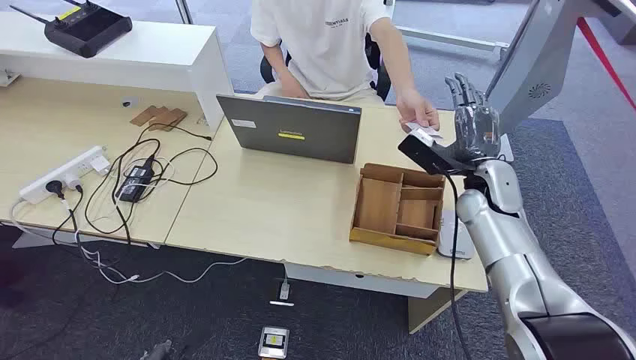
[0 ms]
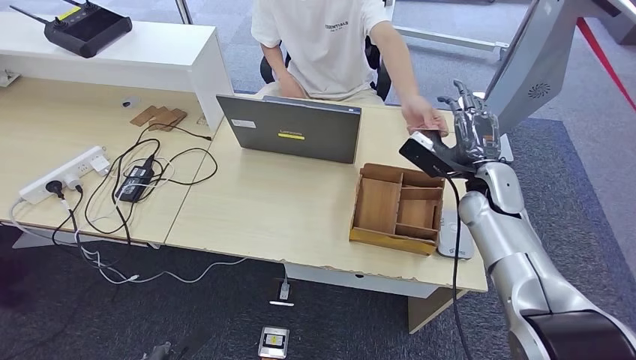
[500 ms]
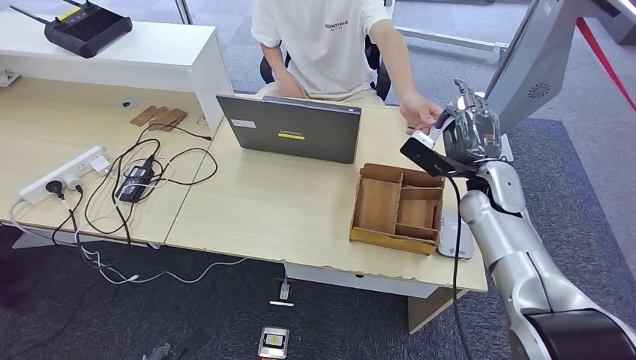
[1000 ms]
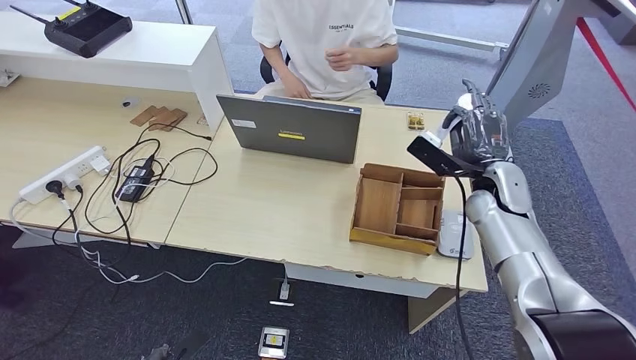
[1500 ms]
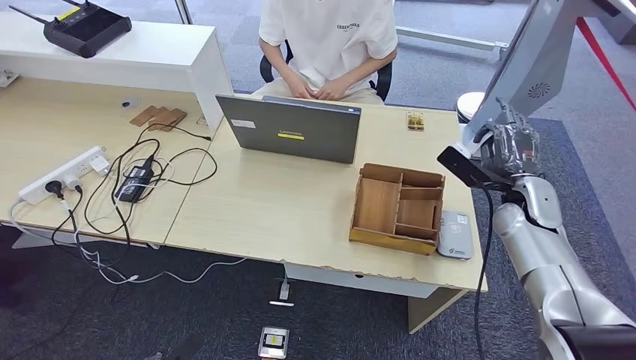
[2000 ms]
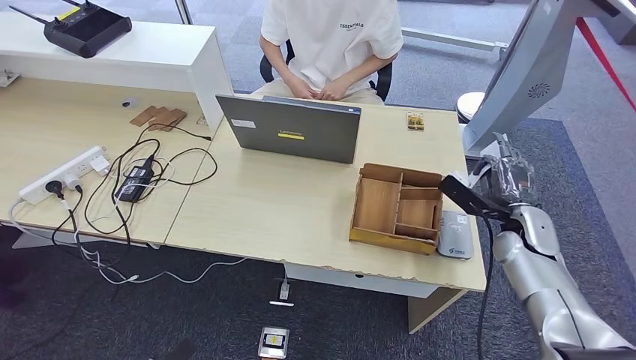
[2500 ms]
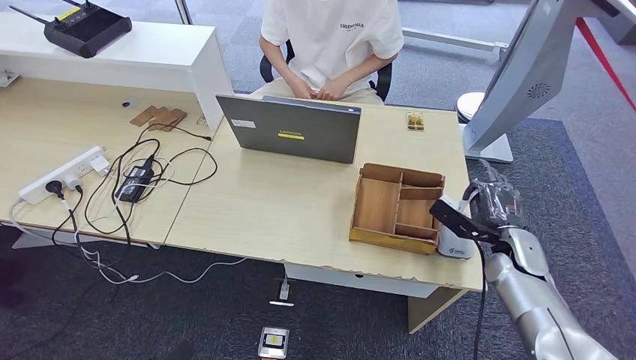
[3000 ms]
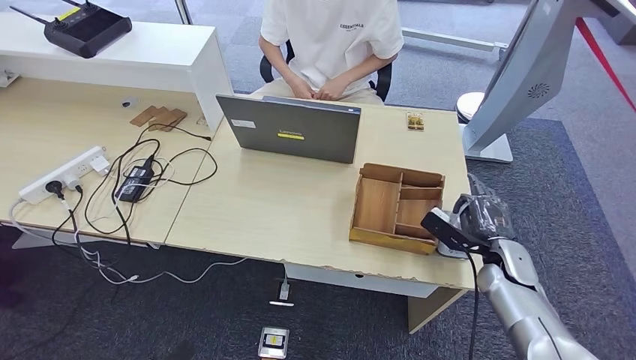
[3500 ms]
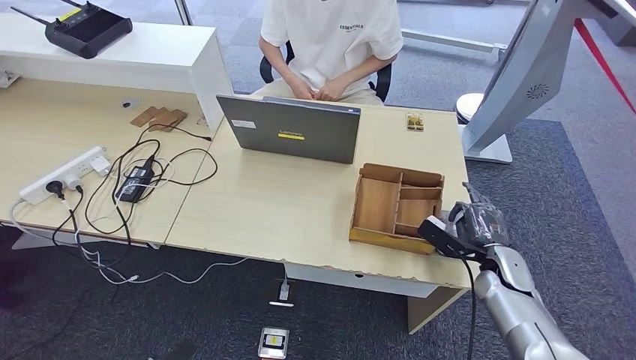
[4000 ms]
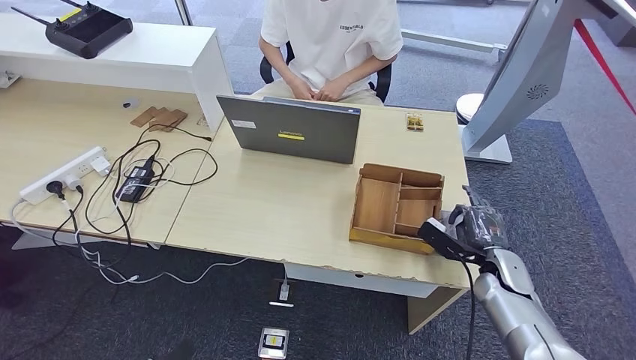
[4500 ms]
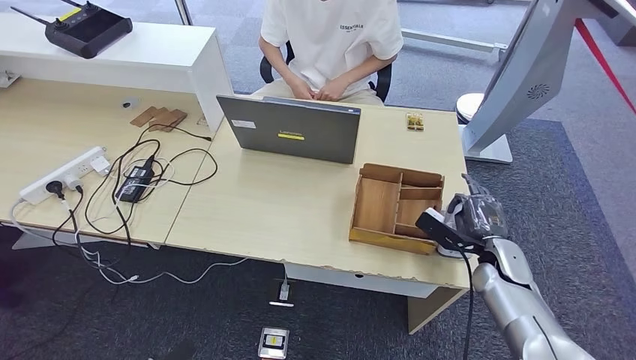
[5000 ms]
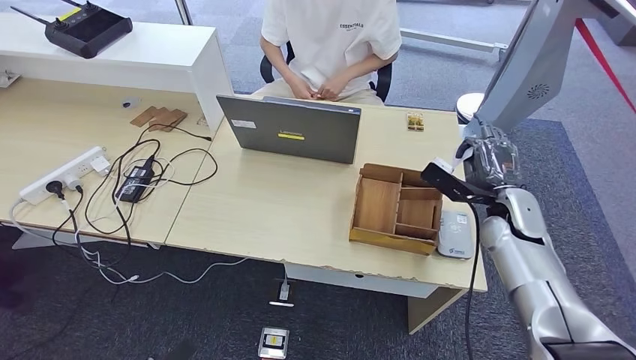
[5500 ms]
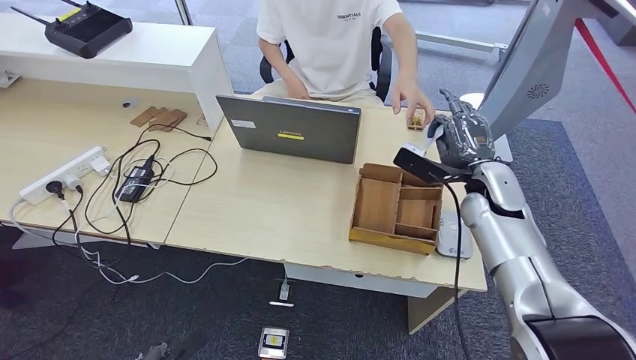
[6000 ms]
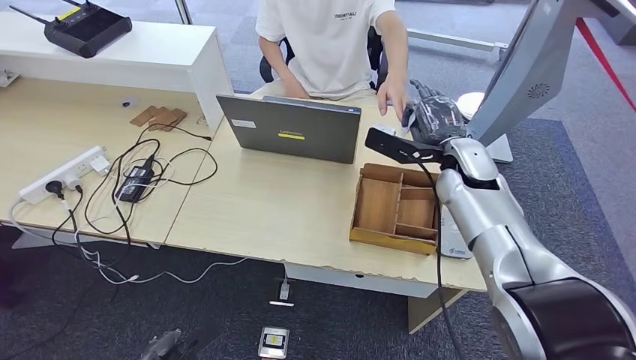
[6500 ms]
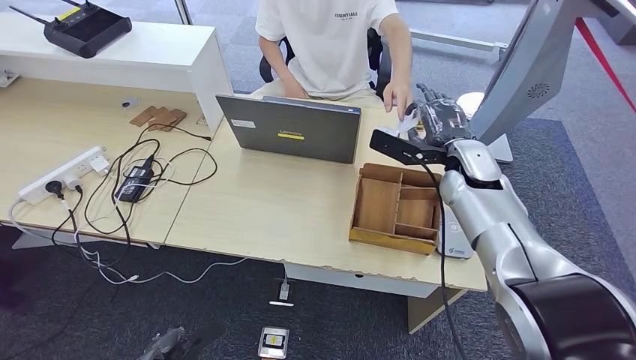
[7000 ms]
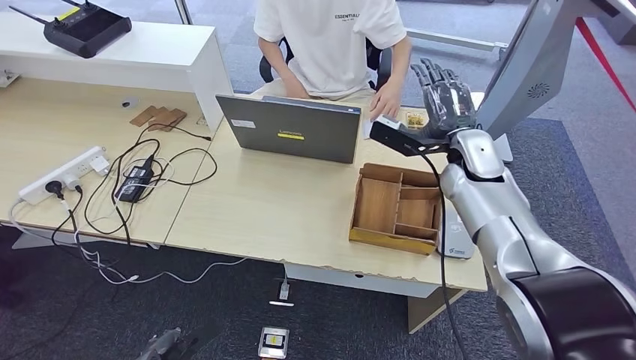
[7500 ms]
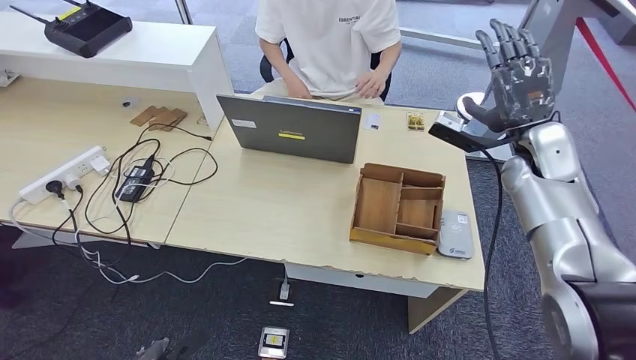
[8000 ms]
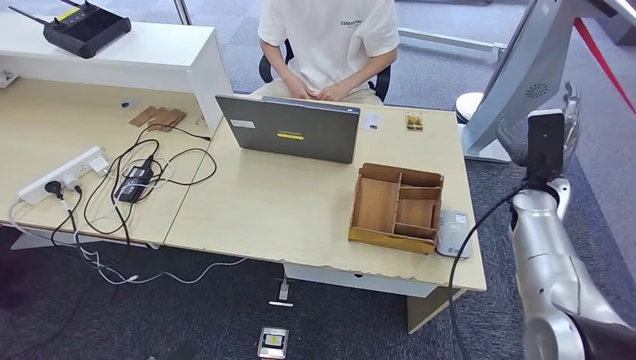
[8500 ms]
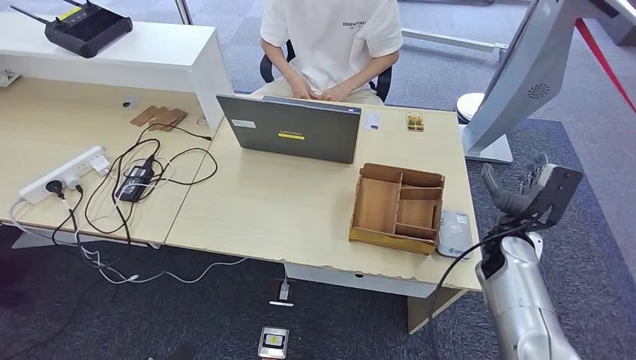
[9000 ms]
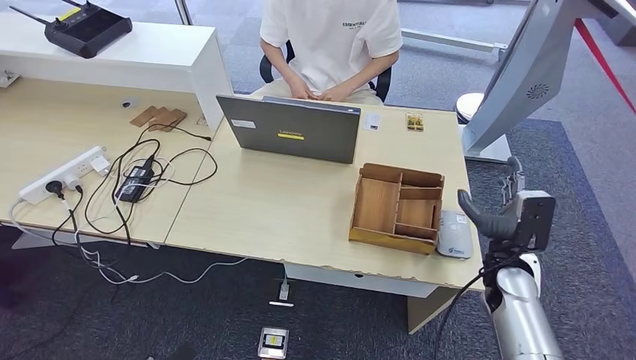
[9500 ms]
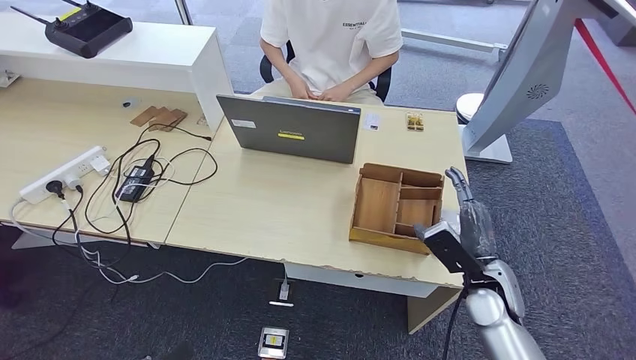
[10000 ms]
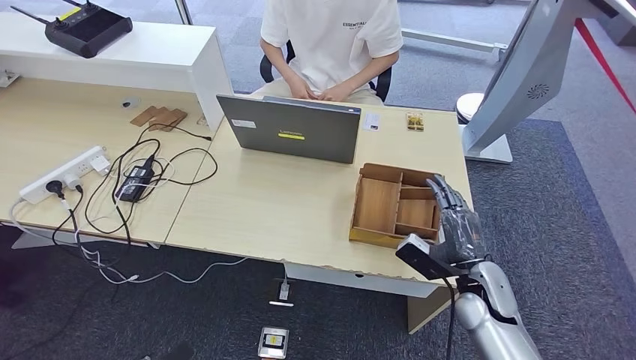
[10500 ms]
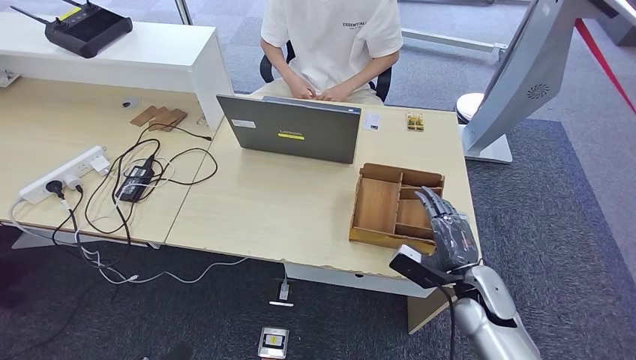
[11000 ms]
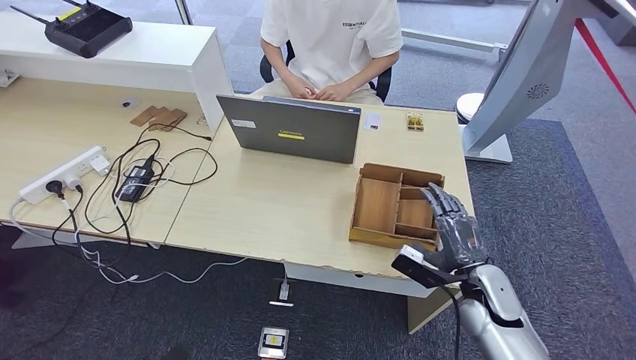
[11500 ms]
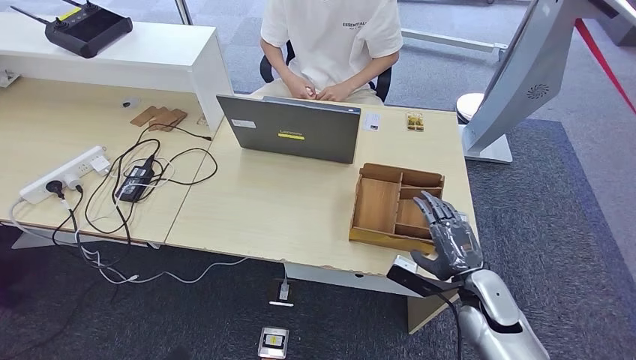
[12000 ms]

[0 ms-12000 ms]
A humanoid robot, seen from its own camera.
Step, 0 ms to 2000 ms: Take the ID card from the person's hand.
Step, 2500 ms to 5500 ms: Place the ID card on the card reader.
Step, 6000 ms to 7000 ms: Hand the ID card to the person.
2000 ms to 4000 ms: The right hand heads downward and backward, covering some 15 cm.
4000 ms to 6000 ms: The right hand heads upward, forward and to the left, covering roughly 20 cm.
6000 ms to 8000 ms: The right hand moves upward and to the right, approximately 10 cm.
8000 ms to 10000 ms: The right hand heads downward and backward, covering roughly 25 cm.

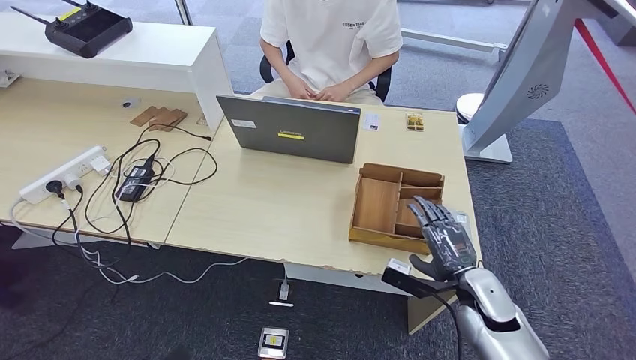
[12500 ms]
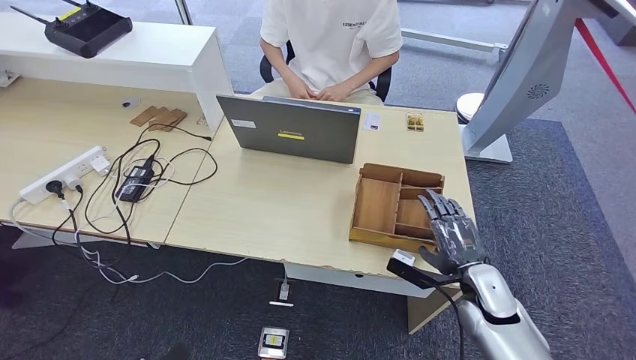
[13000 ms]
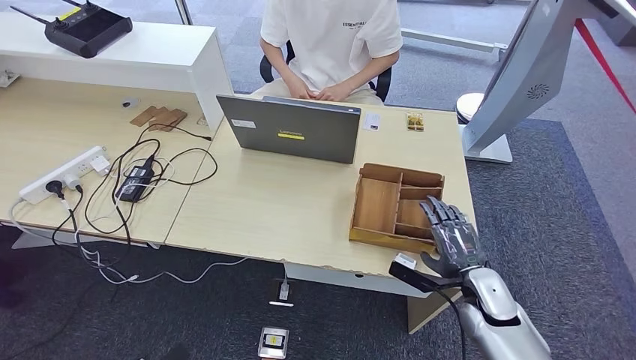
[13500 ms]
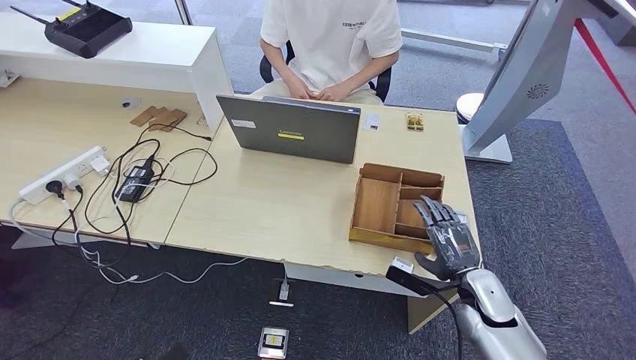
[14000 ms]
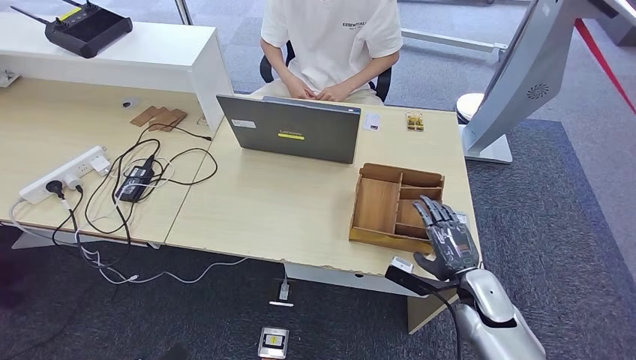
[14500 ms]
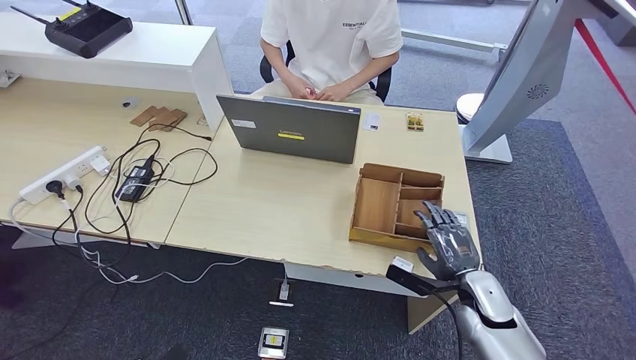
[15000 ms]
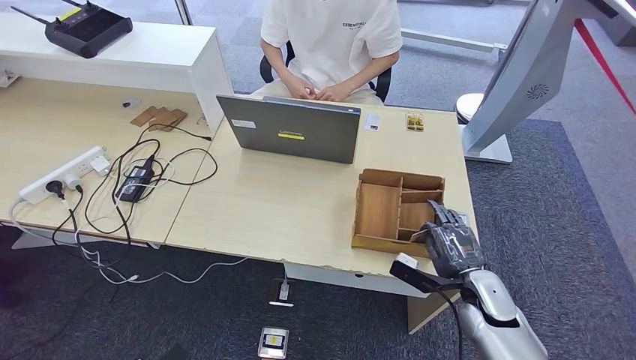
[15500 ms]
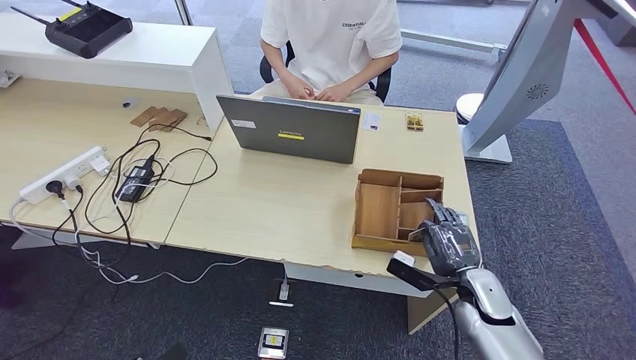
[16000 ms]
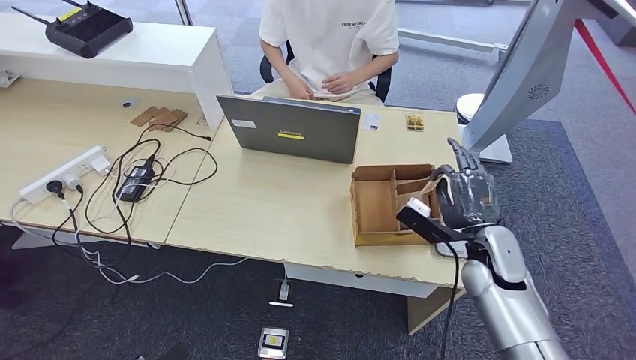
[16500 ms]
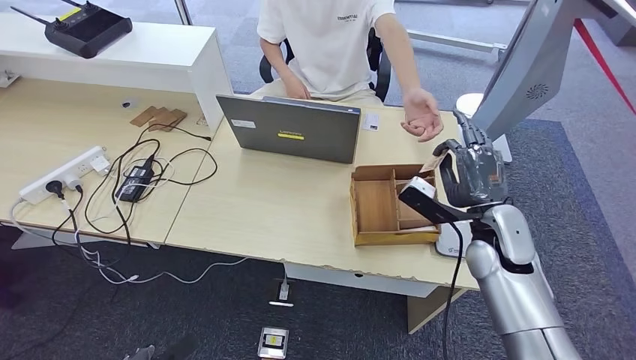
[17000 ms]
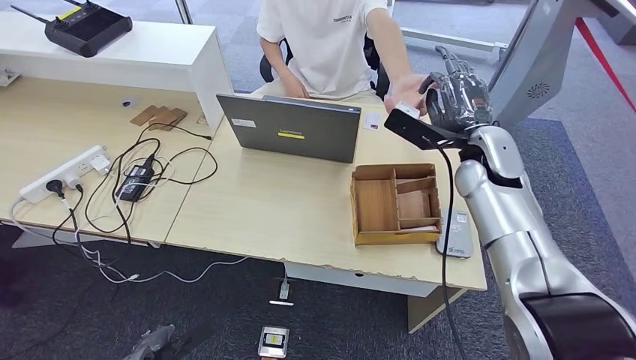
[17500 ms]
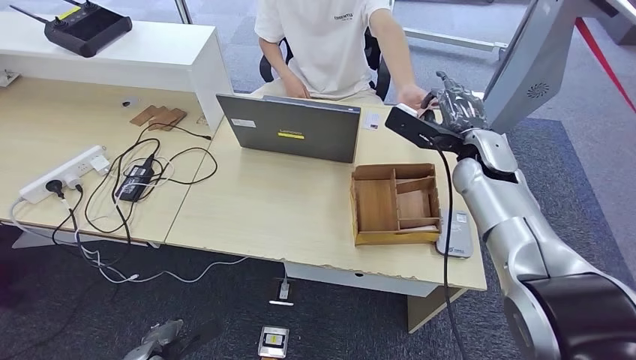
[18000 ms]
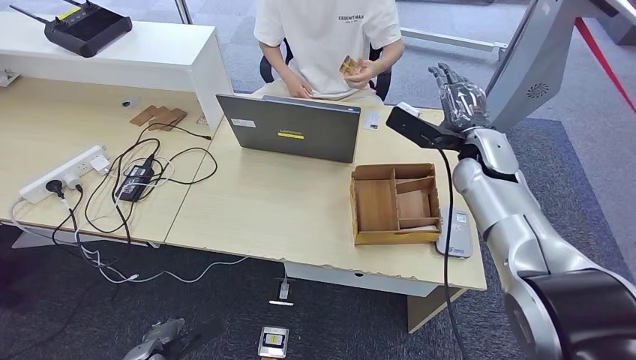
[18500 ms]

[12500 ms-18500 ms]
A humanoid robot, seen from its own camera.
Step, 15000 ms to 17000 ms: Pick up the room key from the key card box.
Step, 17500 ms to 18500 ms: Hand the room key to the person.
12500 ms to 14500 ms: The hands move only a little.
14500 ms to 16500 ms: The right hand heads upward, covering approximately 10 cm.
16500 ms to 18500 ms: The left hand is displaced forward by about 10 cm. The right hand goes approximately 20 cm upward and forward.
